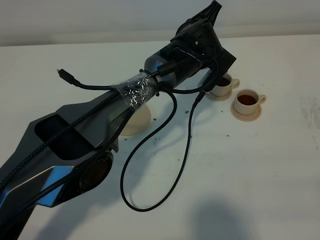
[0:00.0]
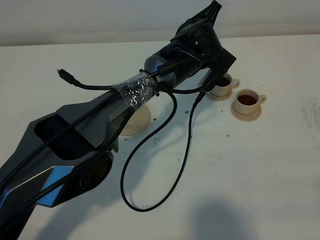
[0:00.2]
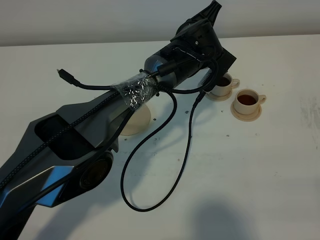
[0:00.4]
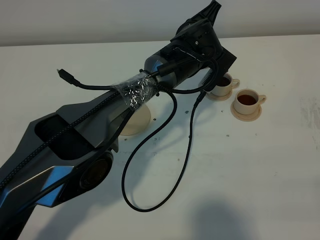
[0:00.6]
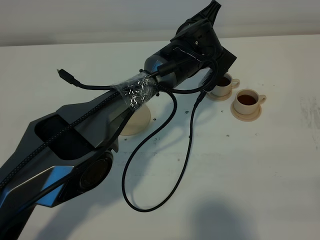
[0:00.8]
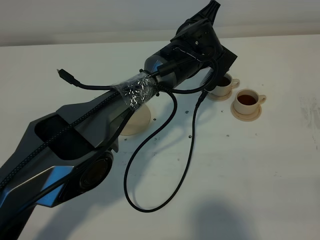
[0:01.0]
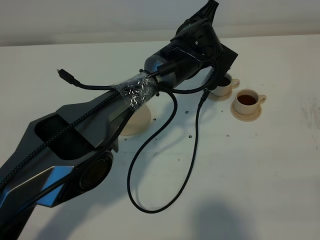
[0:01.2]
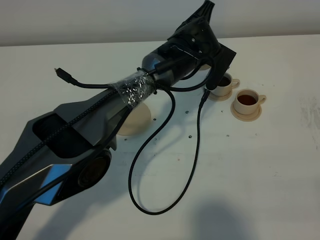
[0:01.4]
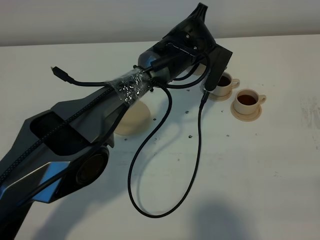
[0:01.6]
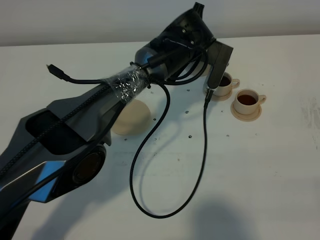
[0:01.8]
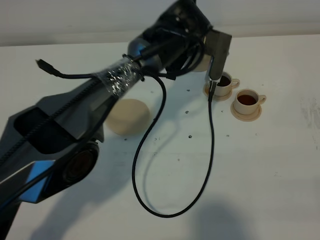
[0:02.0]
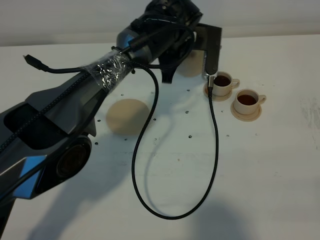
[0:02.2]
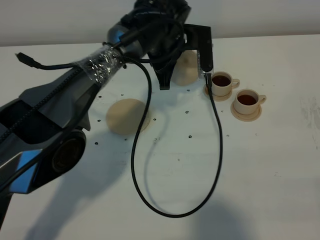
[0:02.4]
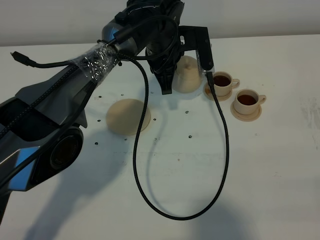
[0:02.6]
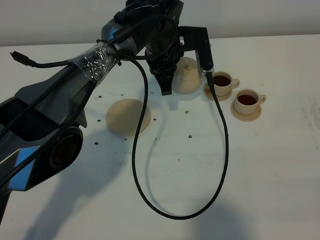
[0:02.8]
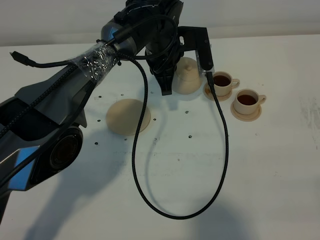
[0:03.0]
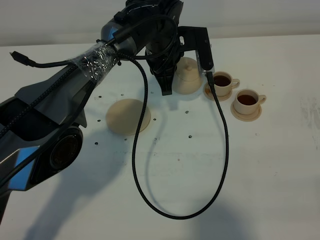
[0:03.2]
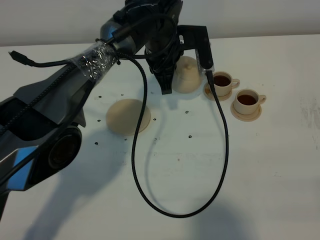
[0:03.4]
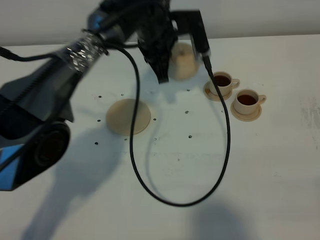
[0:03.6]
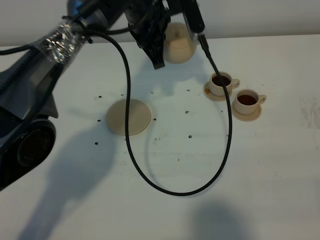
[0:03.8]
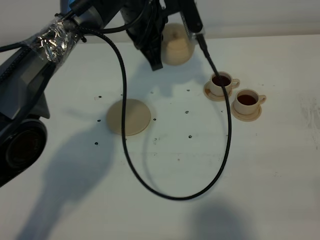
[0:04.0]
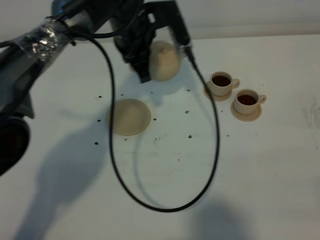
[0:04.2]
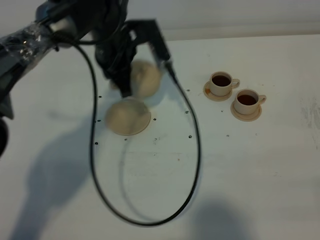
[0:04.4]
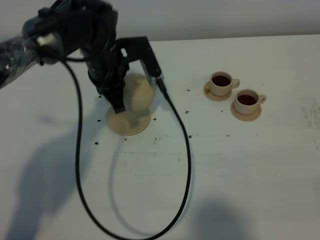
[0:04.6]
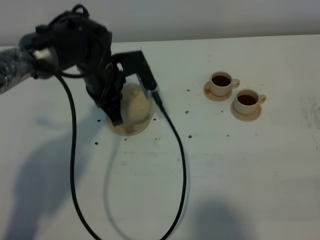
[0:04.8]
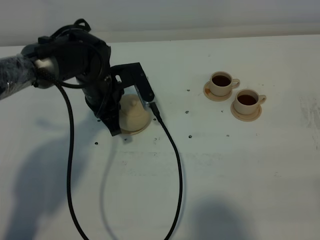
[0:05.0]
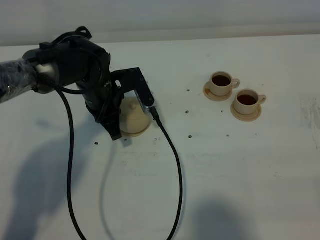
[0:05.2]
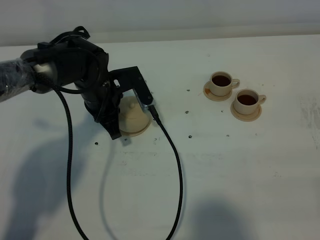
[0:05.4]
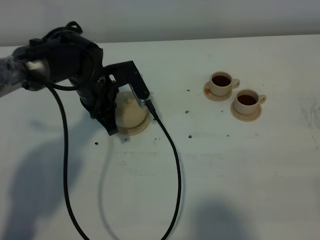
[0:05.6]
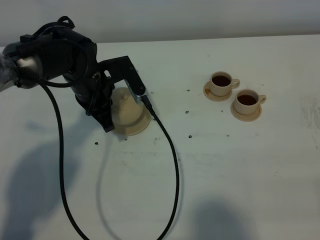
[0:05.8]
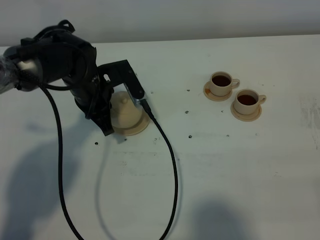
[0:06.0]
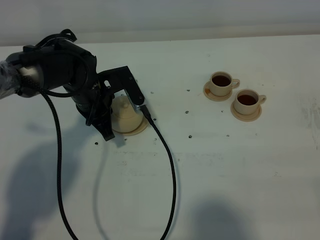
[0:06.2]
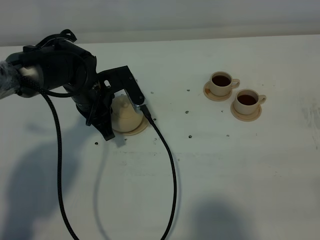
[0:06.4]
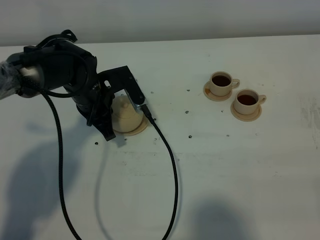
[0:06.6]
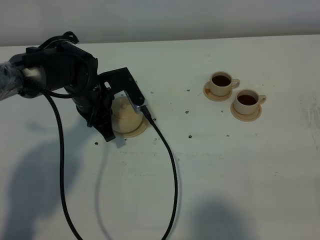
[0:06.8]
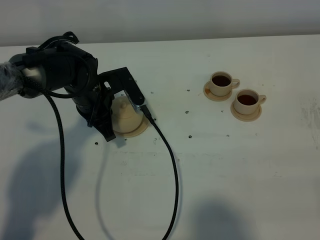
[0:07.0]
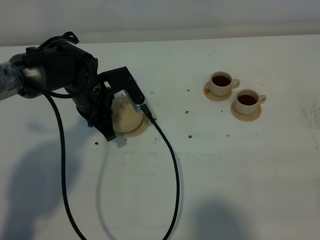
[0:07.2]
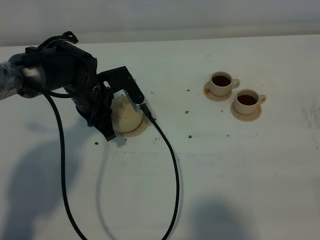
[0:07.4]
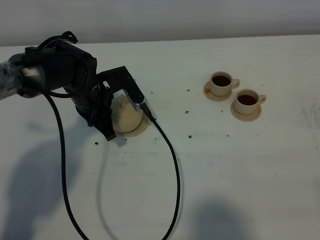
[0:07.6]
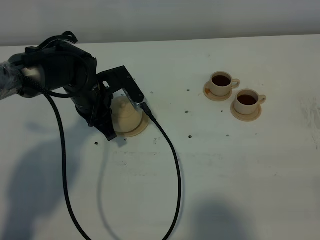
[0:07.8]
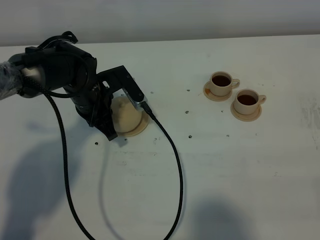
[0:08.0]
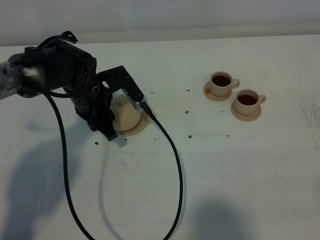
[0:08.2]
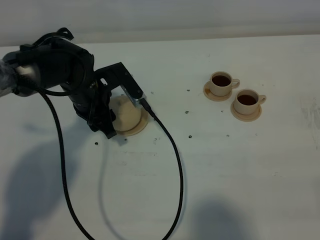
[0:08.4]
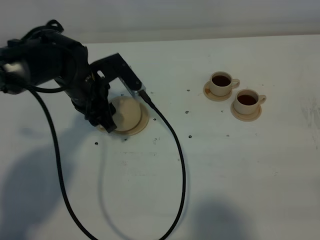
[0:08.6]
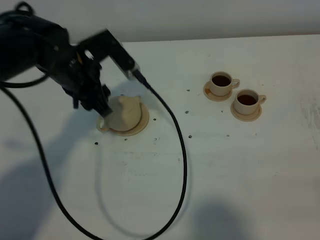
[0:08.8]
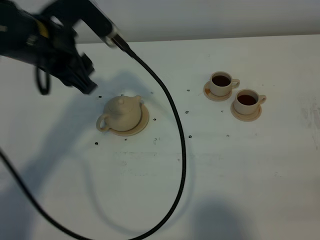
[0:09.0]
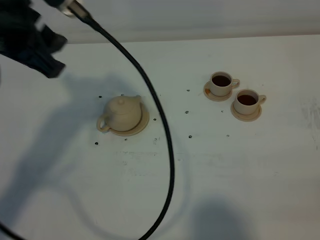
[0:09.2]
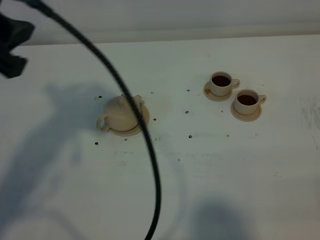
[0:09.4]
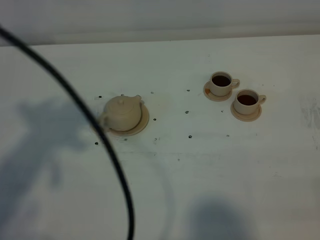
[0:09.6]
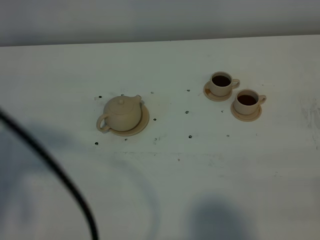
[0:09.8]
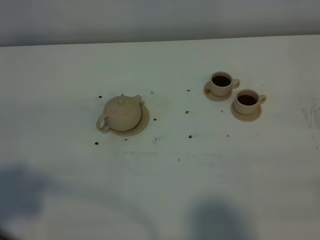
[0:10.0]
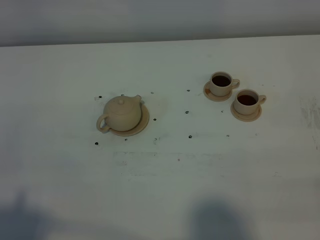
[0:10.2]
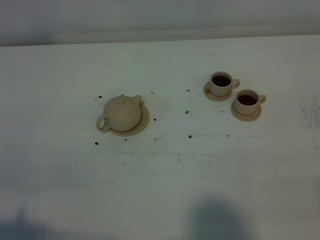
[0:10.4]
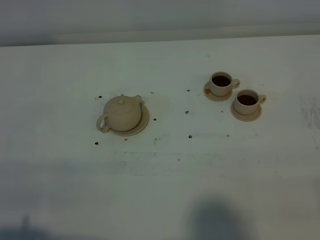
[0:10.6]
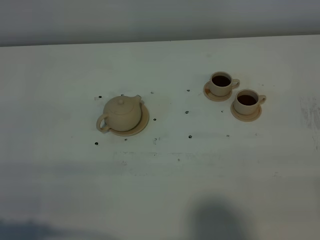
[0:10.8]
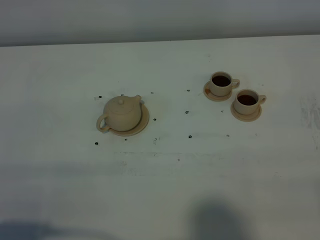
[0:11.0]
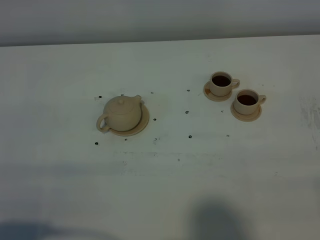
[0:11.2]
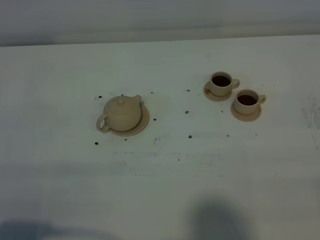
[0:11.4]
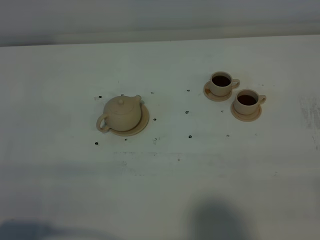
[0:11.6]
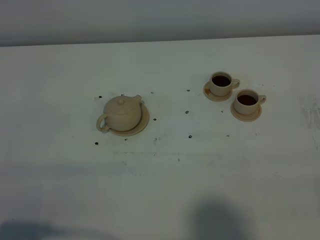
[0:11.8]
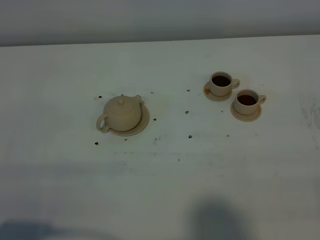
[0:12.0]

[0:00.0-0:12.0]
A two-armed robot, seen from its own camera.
Task of the whole recording: grasp the brown teapot and pour the tea into the two brown teacups one by one, put the brown teapot back in its original place.
0:00.0 to 0:01.6: The grippers make only small movements.
0:01.6 to 0:03.0: The left gripper heads to the left, covering approximately 5 cm.
0:03.0 to 0:04.4: The left gripper goes some 10 cm to the left.
0:04.4 to 0:06.0: The left gripper is displaced downward and to the left by roughly 10 cm.
0:06.0 to 0:07.6: There are only small adjustments of the grippers.
0:07.6 to 0:09.0: The left gripper is displaced upward by roughly 20 cm, and opens its fingers.
0:09.0 to 0:10.4: The left gripper travels backward by approximately 35 cm.

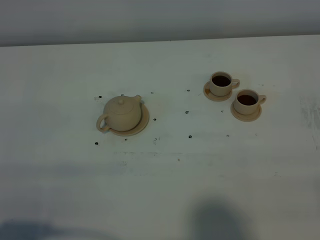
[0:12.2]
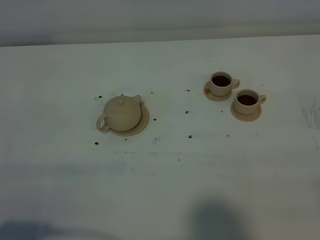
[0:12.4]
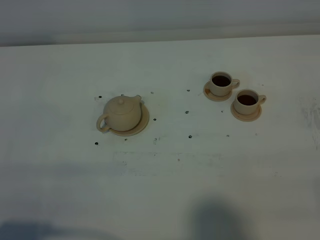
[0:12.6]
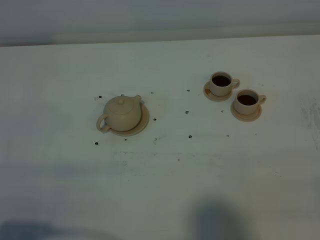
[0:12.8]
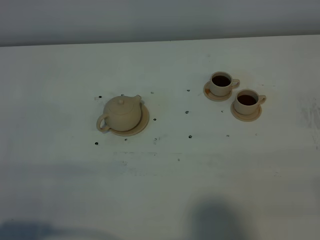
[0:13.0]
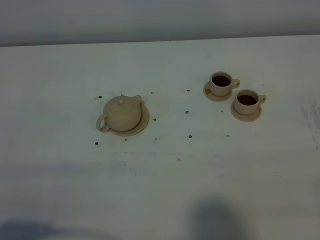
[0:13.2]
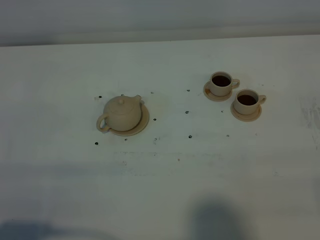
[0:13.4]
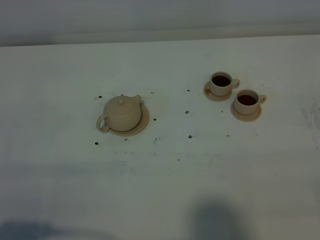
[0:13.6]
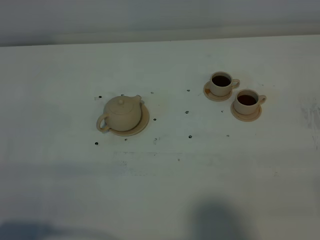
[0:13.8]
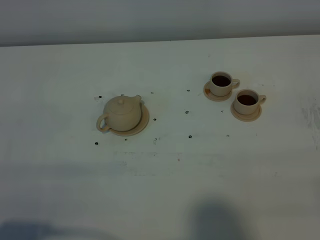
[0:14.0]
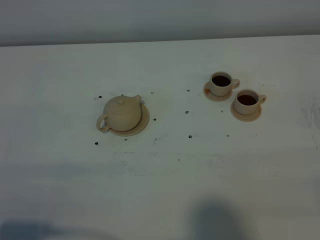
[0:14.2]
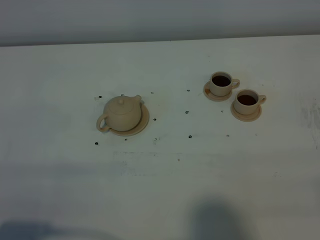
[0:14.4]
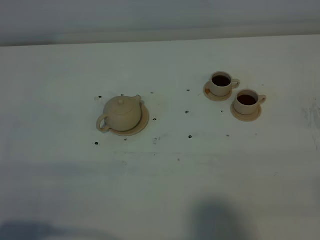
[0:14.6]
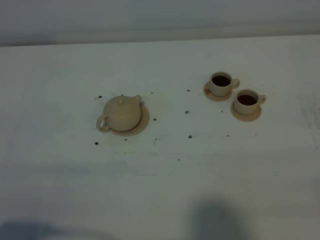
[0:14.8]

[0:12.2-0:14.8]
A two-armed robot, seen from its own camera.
Task of the whole recording: grasp the brown teapot and pour the tea into the two brown teacups one by one, put the brown teapot back in its original place.
0:12.2 to 0:14.8: Both grippers stay about where they are.

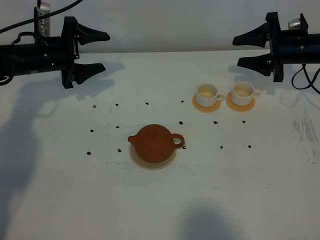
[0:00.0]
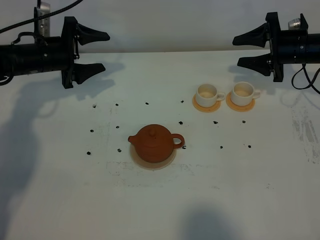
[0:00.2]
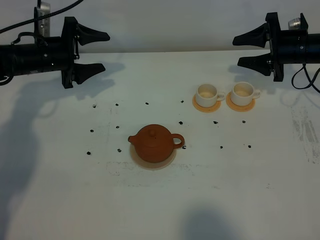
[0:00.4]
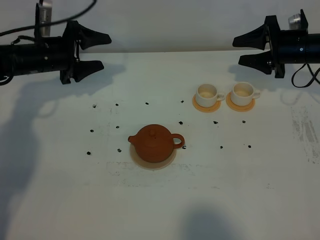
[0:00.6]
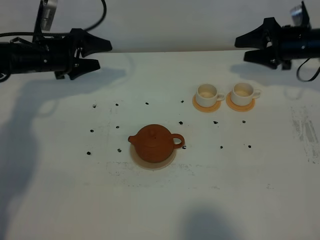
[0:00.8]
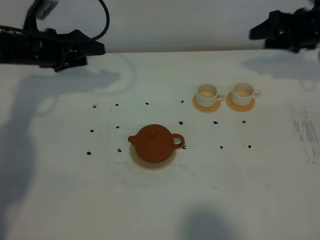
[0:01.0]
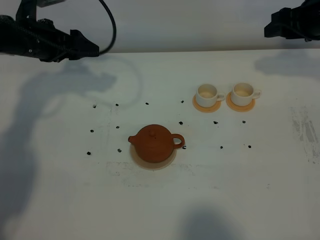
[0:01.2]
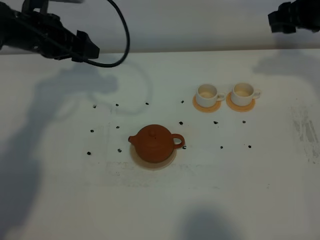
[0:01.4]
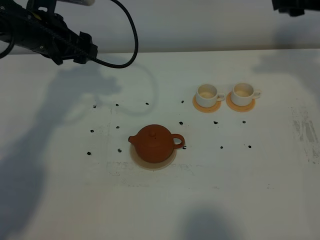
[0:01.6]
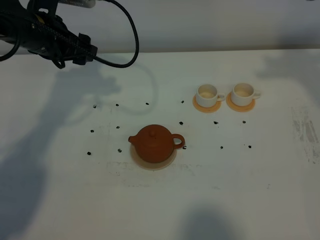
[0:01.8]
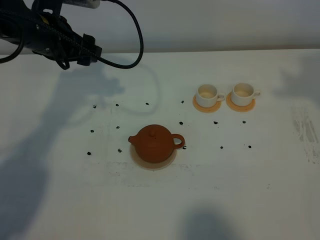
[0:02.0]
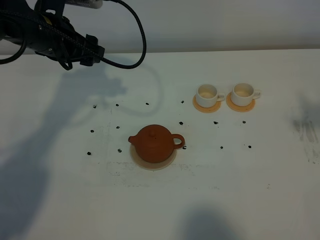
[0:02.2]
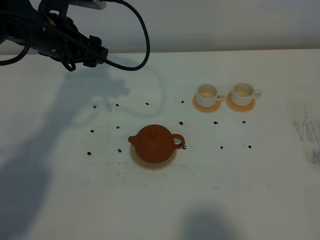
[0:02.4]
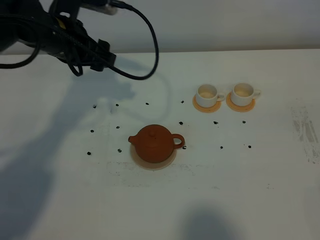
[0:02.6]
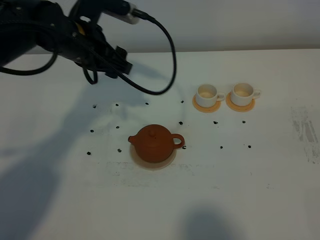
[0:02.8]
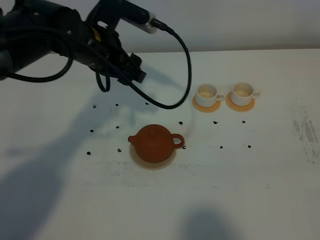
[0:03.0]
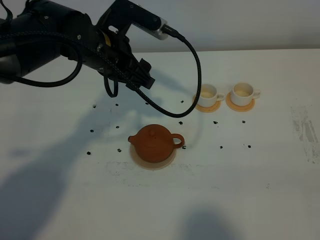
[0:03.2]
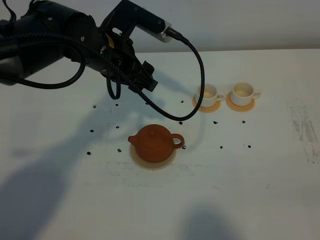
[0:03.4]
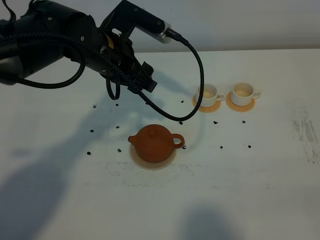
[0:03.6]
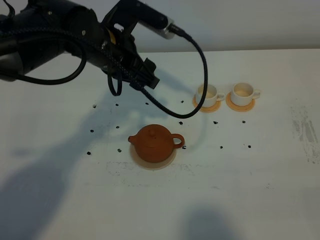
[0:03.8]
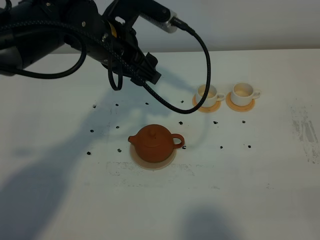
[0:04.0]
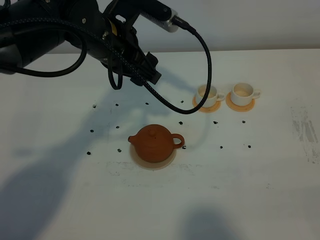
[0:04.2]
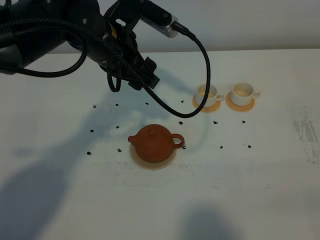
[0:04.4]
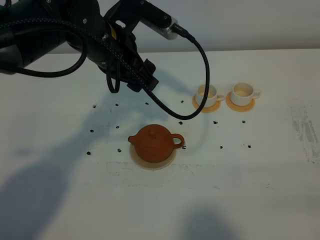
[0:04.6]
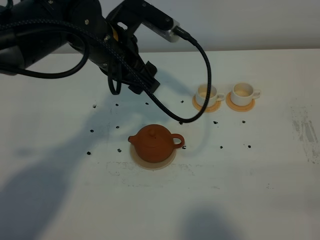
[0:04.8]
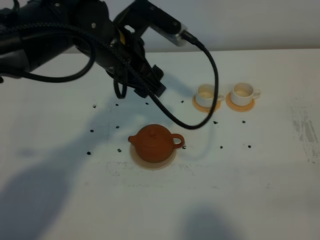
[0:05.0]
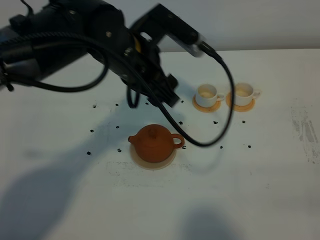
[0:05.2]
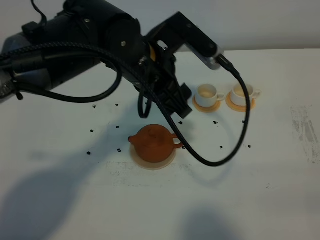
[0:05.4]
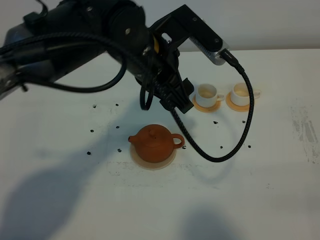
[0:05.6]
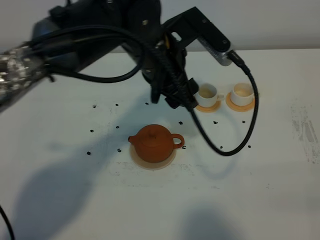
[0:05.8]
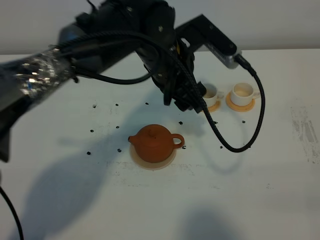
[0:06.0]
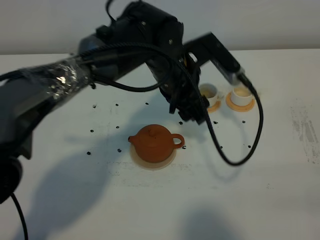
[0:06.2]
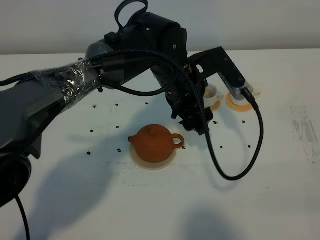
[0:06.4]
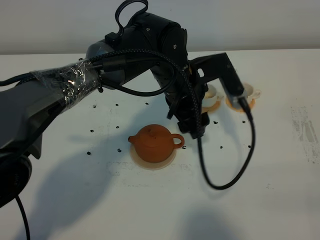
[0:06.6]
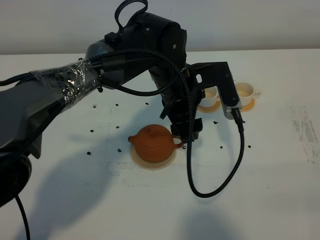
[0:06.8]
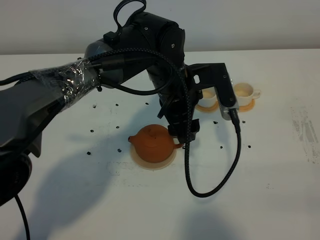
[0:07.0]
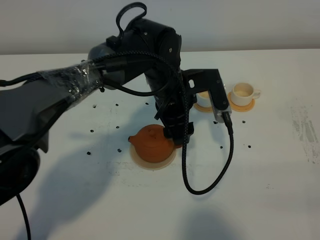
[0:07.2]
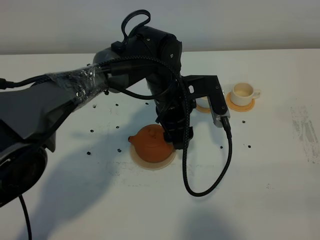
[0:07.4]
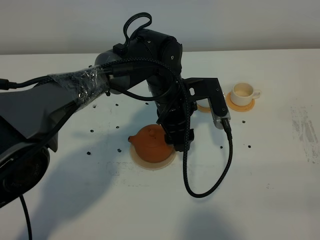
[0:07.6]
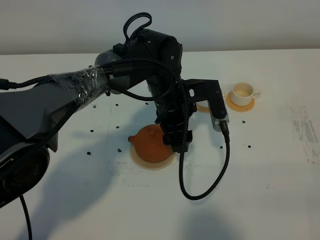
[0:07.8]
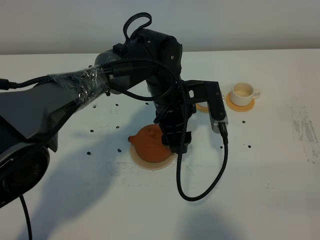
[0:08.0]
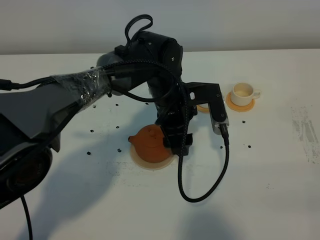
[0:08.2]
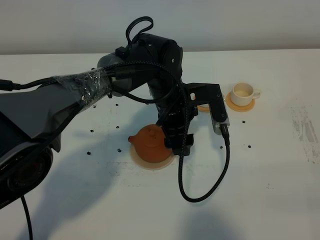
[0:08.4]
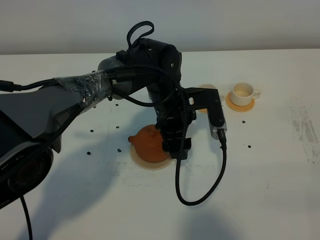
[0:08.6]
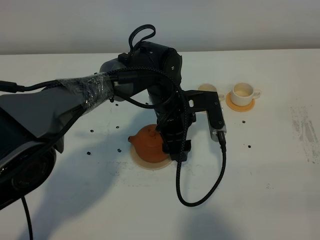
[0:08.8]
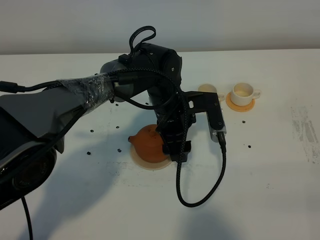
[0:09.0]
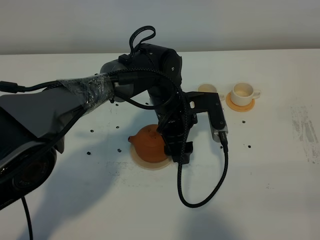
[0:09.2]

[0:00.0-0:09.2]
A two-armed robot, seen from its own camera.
Task of the whole recording: grasp the brown teapot and pour the tea into the two white teacups one by one, put the brown teapot back in its original place.
0:00.0 to 0:01.6: The left gripper travels upward by approximately 10 cm, while the right gripper is displaced upward and backward by about 20 cm.
0:01.6 to 0:03.0: The left gripper heads to the right, covering about 10 cm; the right gripper heads backward, covering some 40 cm.
0:03.0 to 0:04.6: The right gripper shifts some 10 cm downward.
0:04.6 to 0:06.2: The left gripper shifts roughly 10 cm to the right and downward.
0:06.2 to 0:07.6: The left gripper heads downward, covering some 5 cm.
0:07.6 to 0:09.2: The grippers make only small movements.
